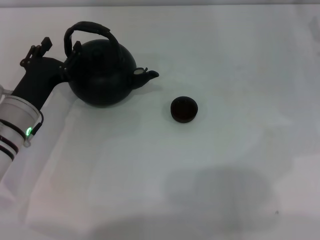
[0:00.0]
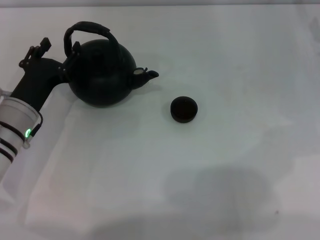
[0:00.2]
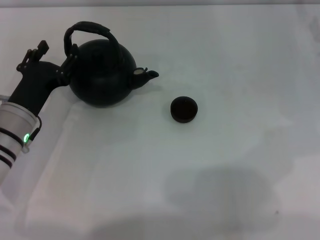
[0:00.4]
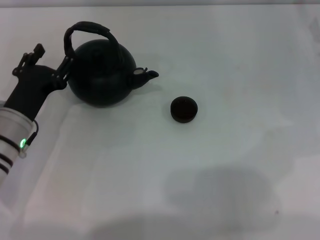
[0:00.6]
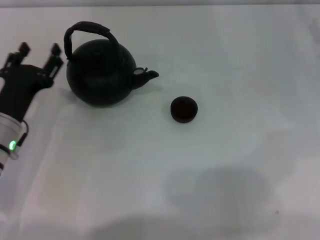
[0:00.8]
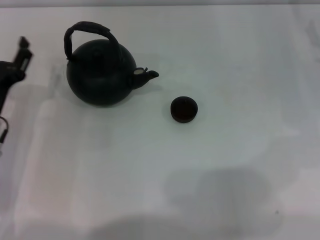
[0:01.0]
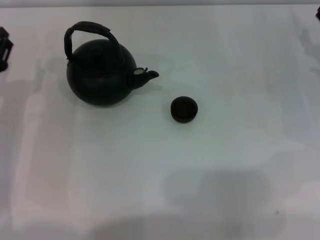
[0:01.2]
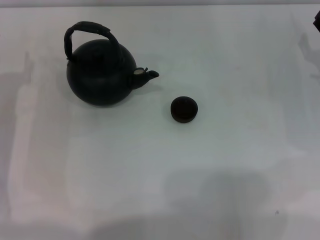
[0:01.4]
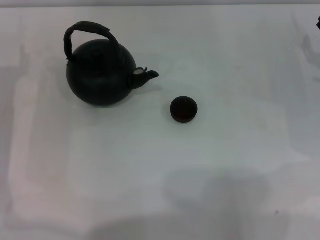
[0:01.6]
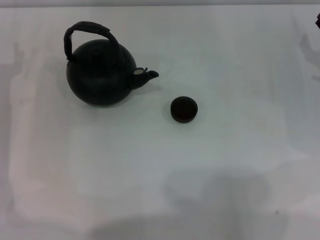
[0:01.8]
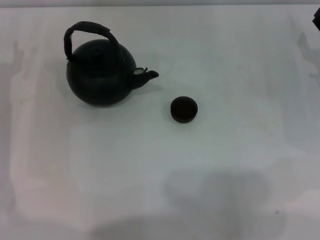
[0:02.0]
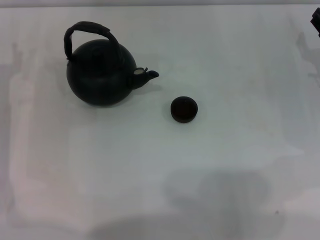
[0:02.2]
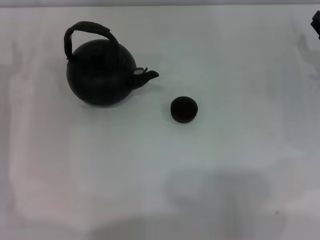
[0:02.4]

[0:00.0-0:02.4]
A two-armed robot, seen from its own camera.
Task of the whole recording: Grasp the handle of the teapot with one hand and pour tea into the teacup.
0:00.0 to 0:01.2: The left gripper heads to the left, covering approximately 5 cm.

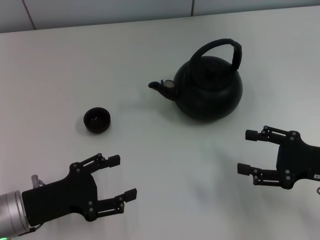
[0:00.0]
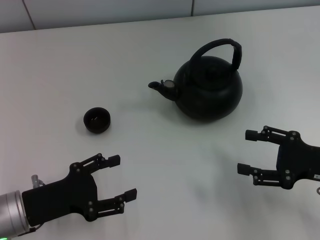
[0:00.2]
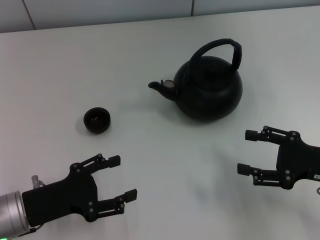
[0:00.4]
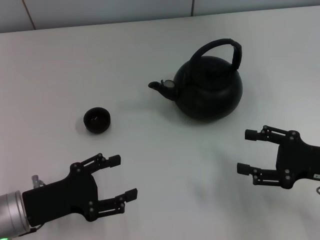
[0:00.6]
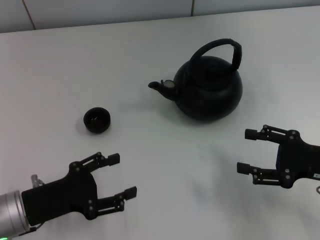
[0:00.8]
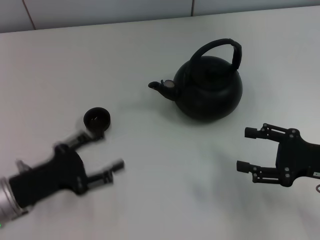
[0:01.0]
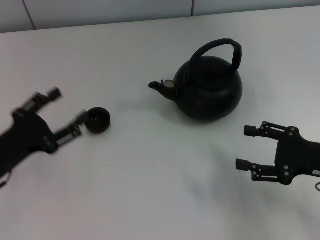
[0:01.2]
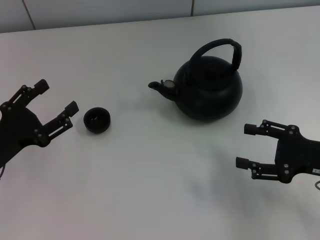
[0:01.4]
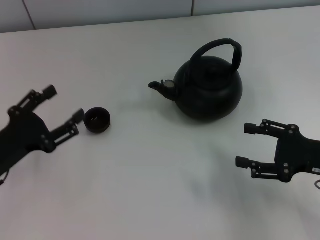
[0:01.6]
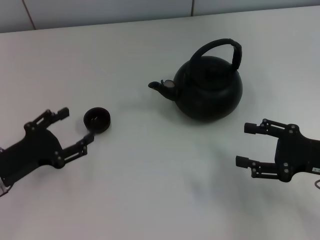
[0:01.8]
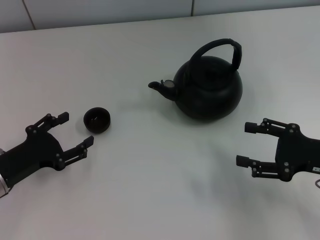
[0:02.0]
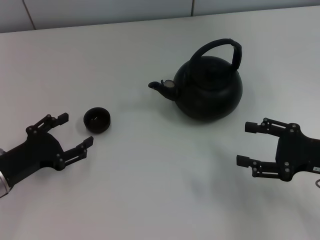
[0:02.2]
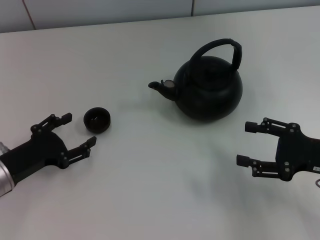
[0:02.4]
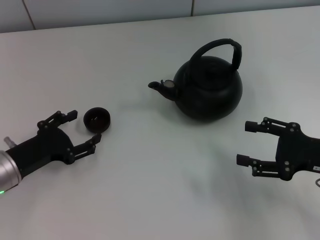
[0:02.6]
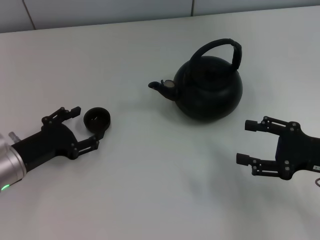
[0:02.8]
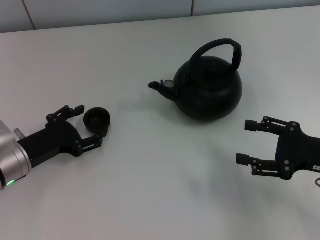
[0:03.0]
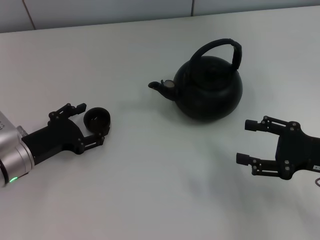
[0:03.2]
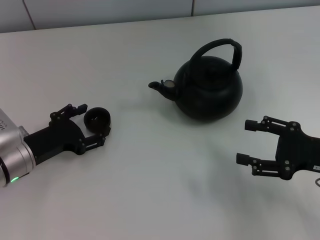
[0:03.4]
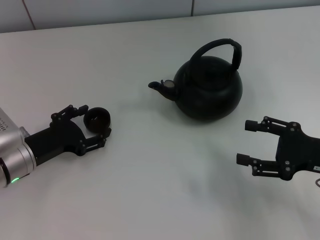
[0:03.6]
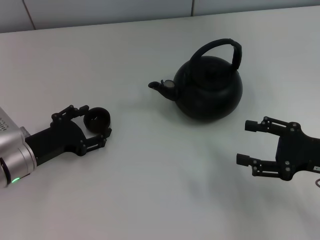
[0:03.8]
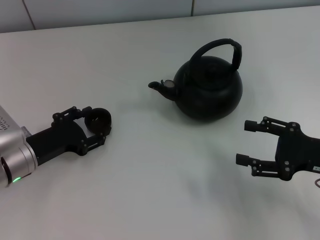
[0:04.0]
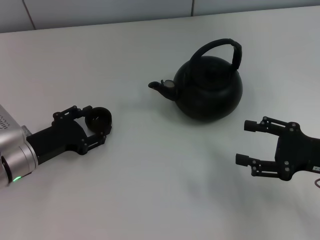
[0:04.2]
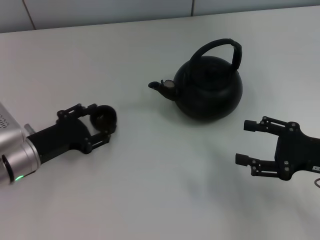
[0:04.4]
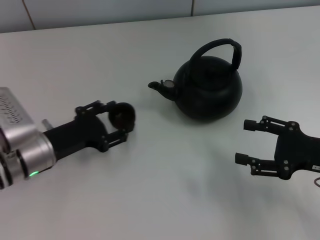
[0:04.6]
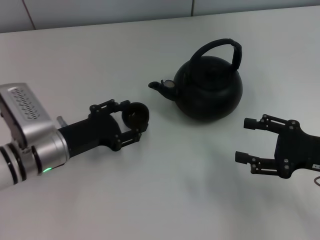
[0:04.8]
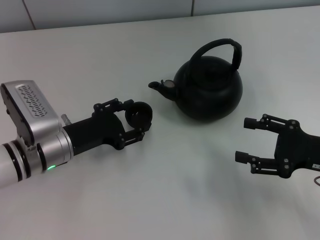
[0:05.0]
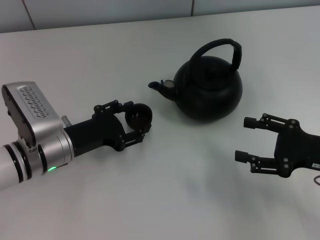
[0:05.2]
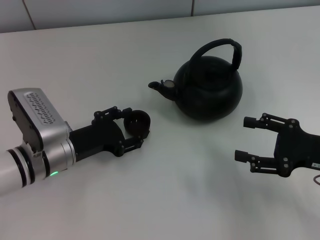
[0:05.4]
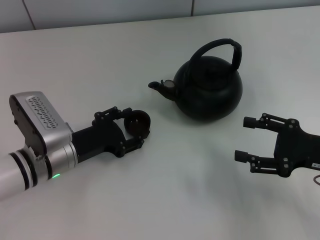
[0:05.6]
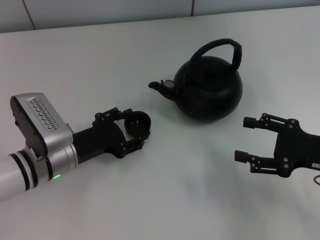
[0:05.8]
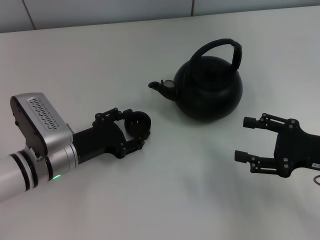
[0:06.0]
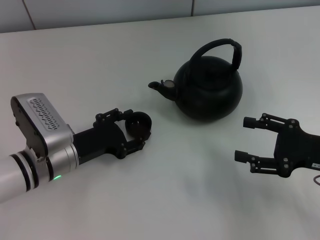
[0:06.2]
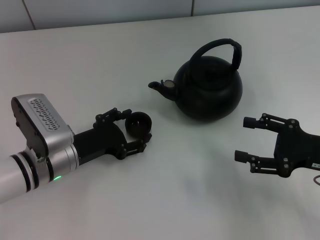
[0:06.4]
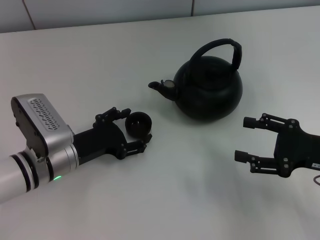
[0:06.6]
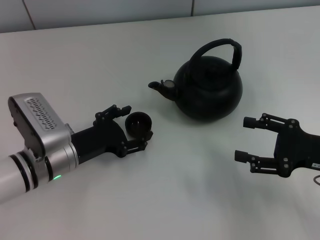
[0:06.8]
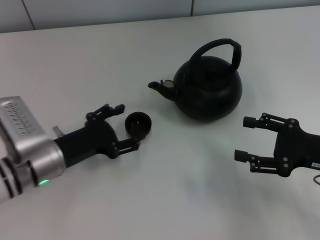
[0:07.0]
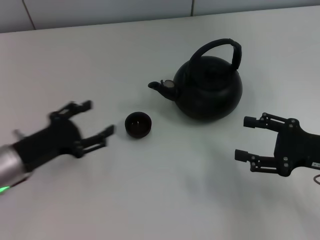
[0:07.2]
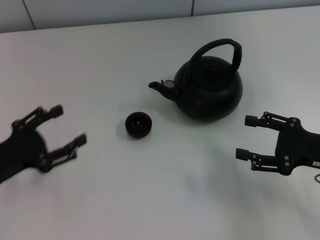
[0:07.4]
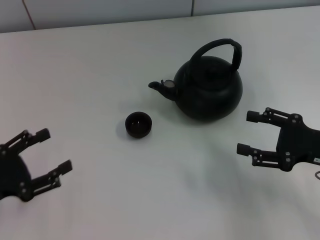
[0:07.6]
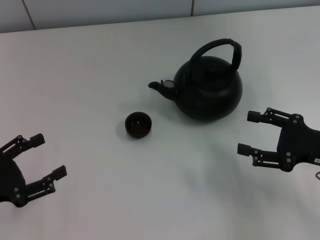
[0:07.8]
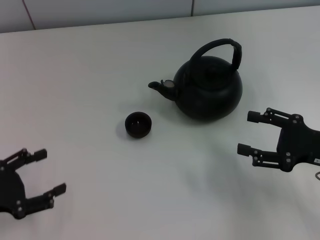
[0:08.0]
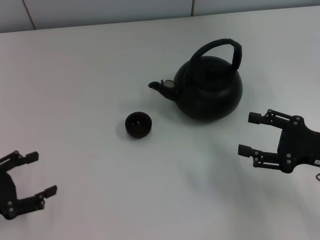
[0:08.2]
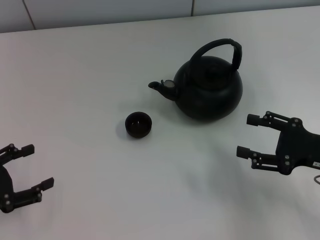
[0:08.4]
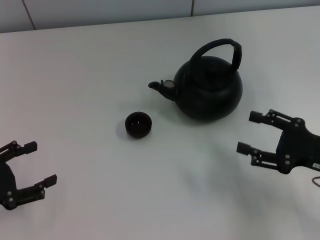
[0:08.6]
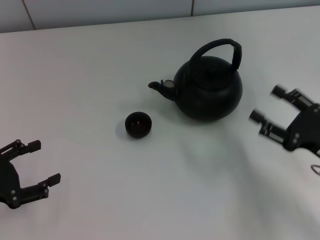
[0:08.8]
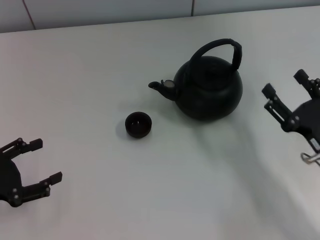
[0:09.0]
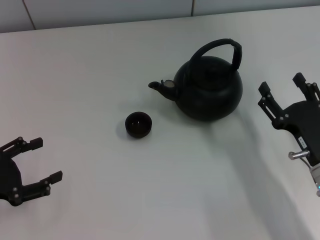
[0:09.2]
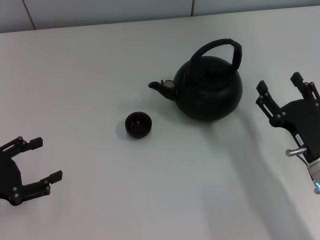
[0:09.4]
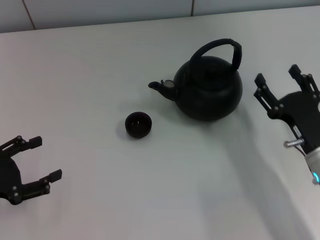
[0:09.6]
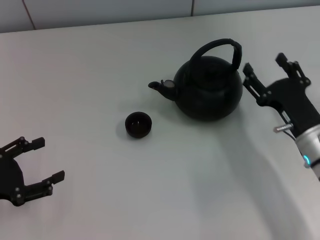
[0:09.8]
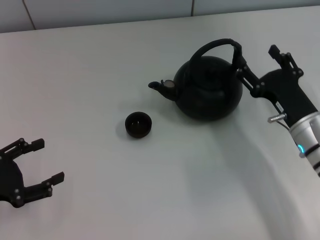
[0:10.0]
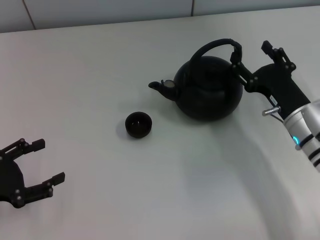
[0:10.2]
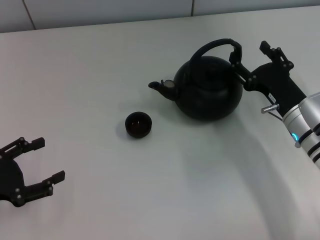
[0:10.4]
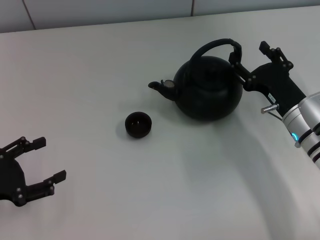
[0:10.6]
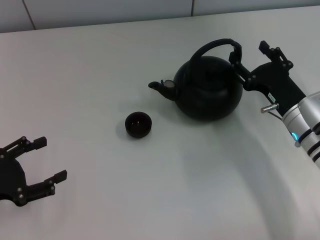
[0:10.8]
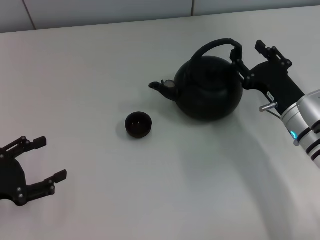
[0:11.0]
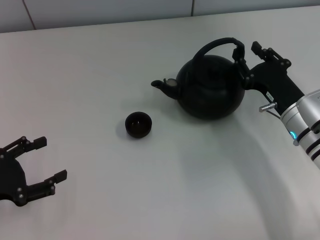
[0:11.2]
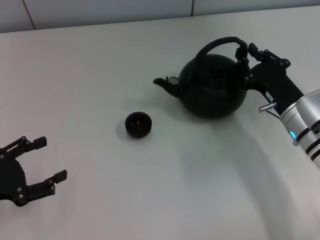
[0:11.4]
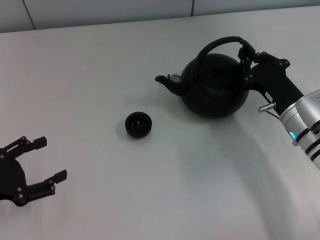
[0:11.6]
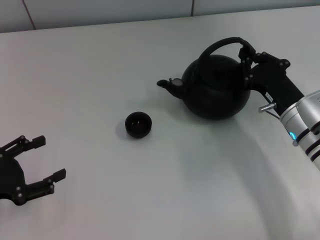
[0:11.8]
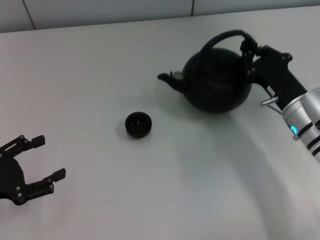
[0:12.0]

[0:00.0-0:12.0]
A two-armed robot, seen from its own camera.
Task of the whole recording: Grasp the handle of the teapot with one hand and pour tea into the teacup.
Step, 0:00.0 to 0:04.6: Pick up the teacup with the left gripper.
Step, 0:04.8 to 0:07.4: Place the teacup in the center of view with the left gripper.
0:01.6 to 0:03.0: The left gripper ends up approximately 5 cm from where it was.
0:03.0 to 0:04.4: The left gripper closes.
0:04.4 to 0:06.0: The left gripper heads to the right, covering about 5 cm, and opens.
0:06.0 to 0:07.6: The left gripper travels to the left and backward by about 15 cm, and opens its fingers.
0:07.6 to 0:09.0: The right gripper moves some 5 cm.
0:09.0 to 0:10.4: The right gripper goes some 10 cm forward.
0:10.4 to 0:12.0: The right gripper closes its fingers.

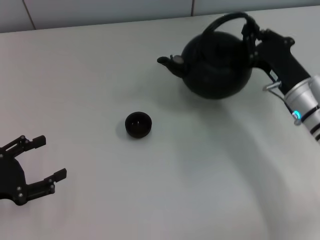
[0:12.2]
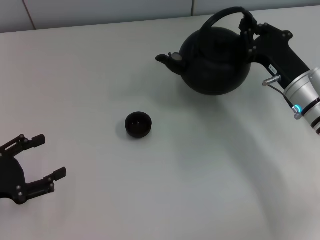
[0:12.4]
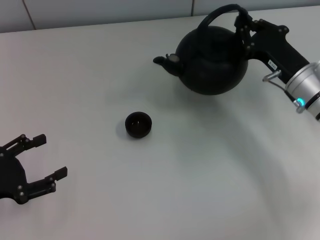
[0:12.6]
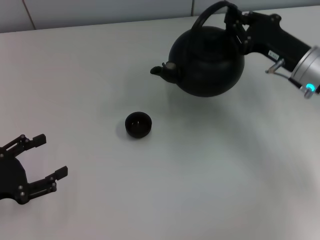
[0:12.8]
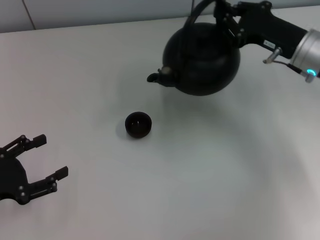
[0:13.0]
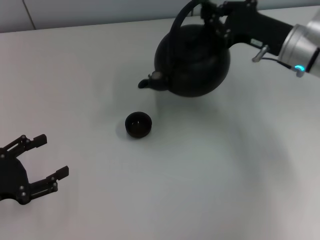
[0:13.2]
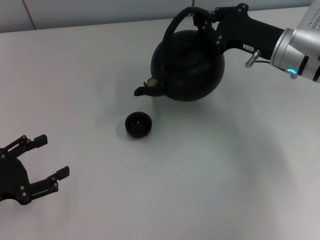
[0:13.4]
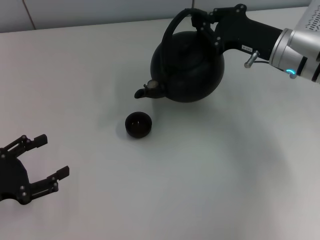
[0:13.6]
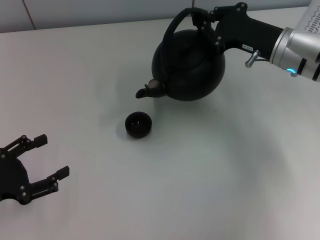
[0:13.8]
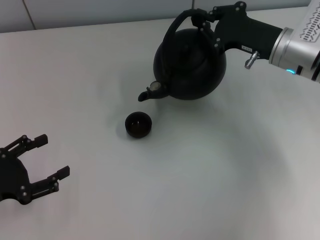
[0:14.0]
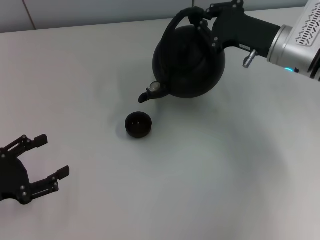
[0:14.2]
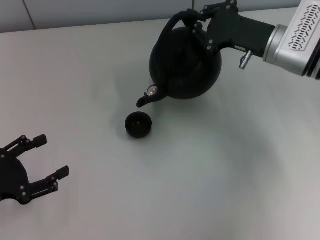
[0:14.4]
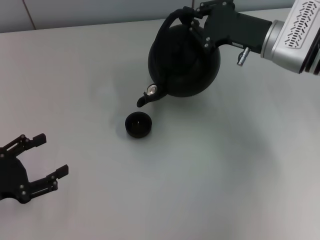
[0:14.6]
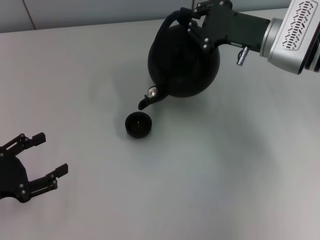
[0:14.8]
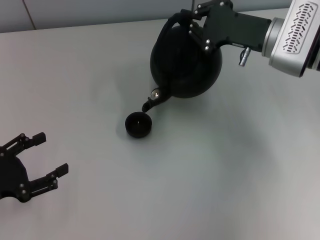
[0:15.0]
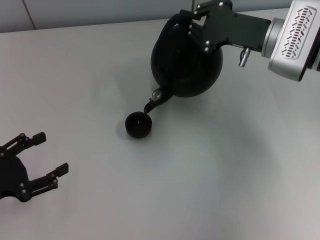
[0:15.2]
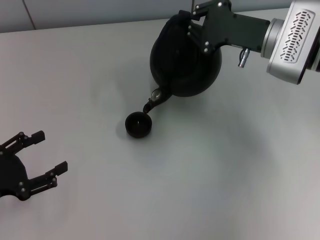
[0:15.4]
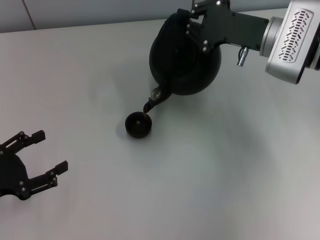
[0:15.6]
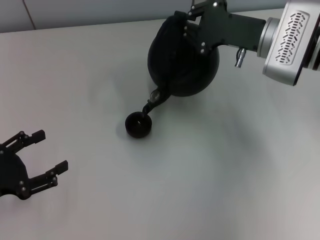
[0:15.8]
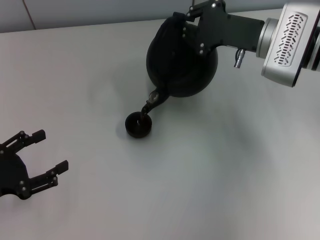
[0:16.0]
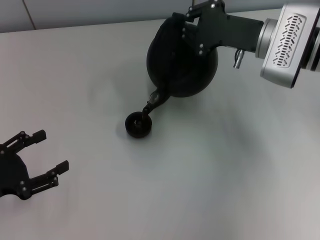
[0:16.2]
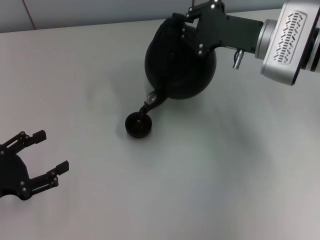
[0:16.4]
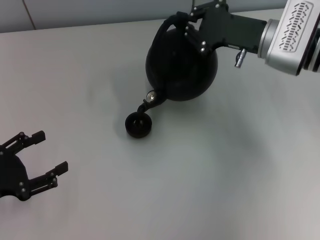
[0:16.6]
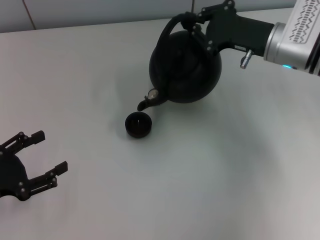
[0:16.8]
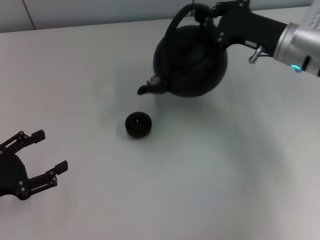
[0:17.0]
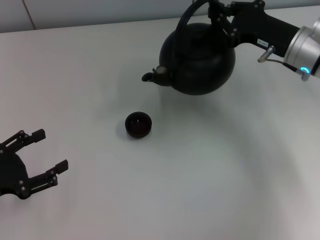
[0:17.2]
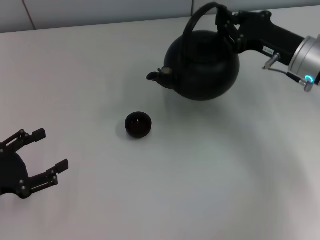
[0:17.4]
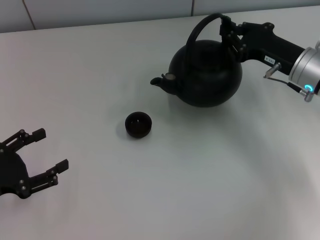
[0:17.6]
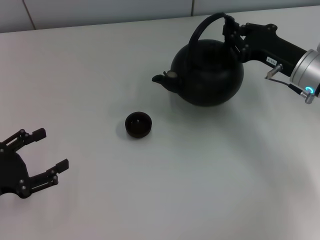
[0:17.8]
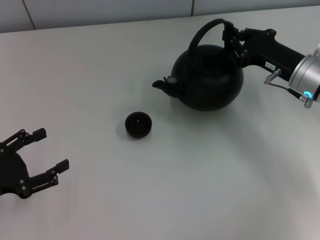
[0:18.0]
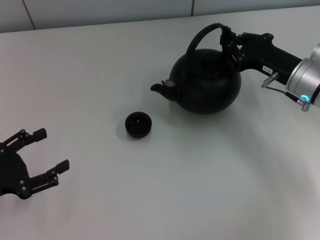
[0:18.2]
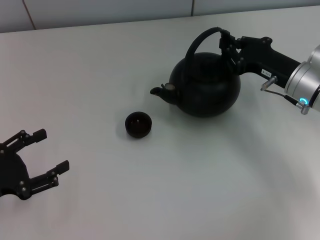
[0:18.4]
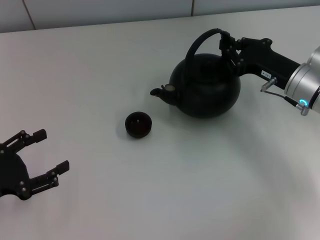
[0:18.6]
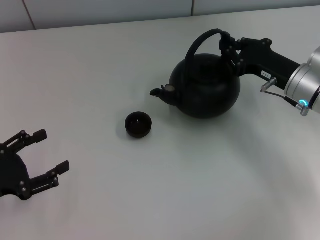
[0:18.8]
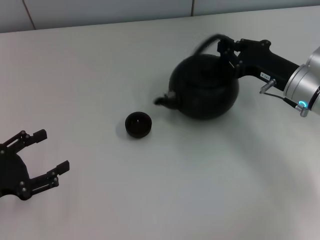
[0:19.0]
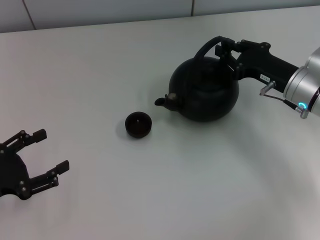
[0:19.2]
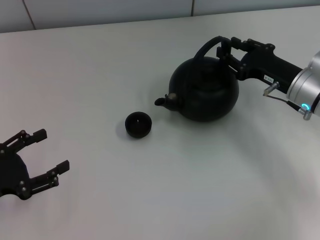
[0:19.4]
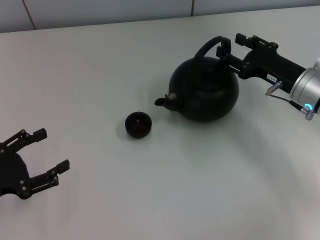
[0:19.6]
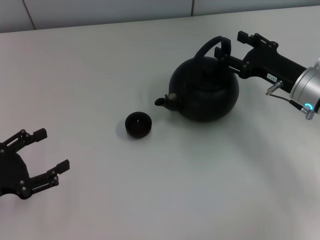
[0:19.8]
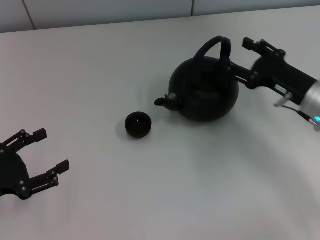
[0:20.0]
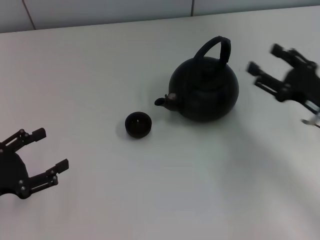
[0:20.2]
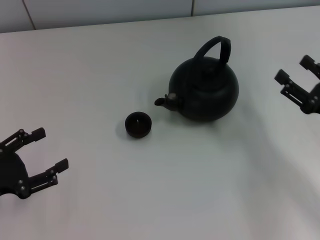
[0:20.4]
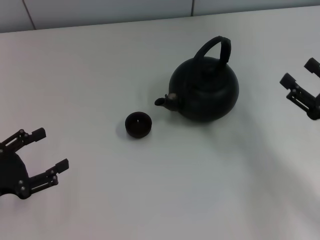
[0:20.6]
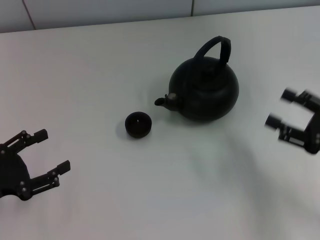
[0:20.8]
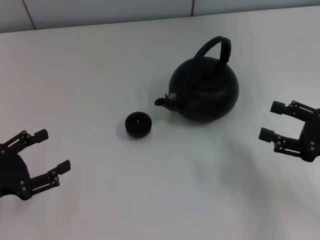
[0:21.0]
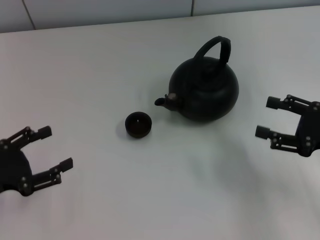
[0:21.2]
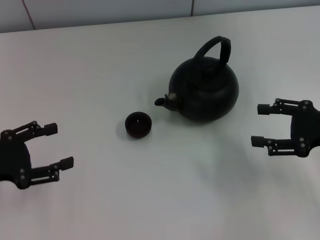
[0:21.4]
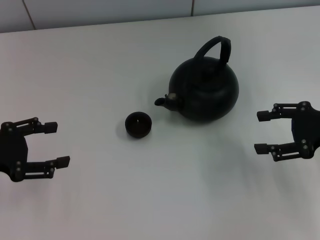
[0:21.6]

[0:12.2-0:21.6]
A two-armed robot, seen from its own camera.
Task of the whole recording: Grasp the handle of the teapot with one hand and pour tea into the teacup.
Step, 0:17.2 to 0:20.2: Put down the teapot with the right gripper.
0:12.2 to 0:13.8: The right gripper heads forward and upward, covering roughly 10 cm.
0:17.0 to 0:18.4: The right gripper travels downward by roughly 5 cm.
0:18.4 to 0:20.0: The right gripper ends up about 5 cm from where it was, and opens.
0:20.0 to 0:21.6: The left gripper shifts about 10 cm forward and upward. The right gripper is displaced upward and to the right by about 10 cm, and moves some 10 cm backward and comes back.
